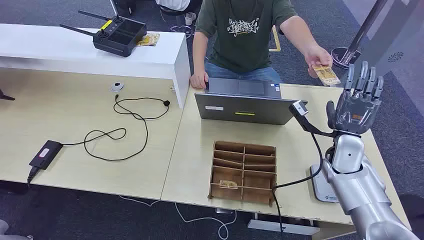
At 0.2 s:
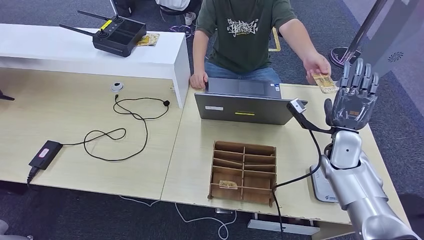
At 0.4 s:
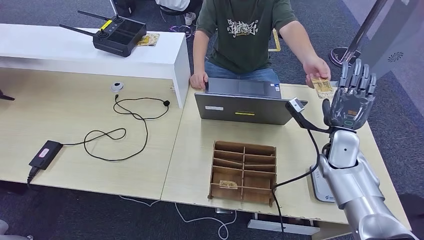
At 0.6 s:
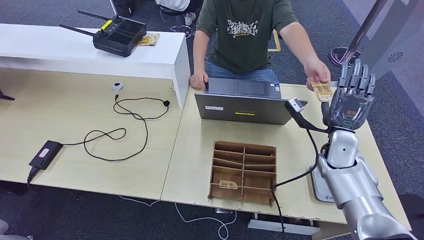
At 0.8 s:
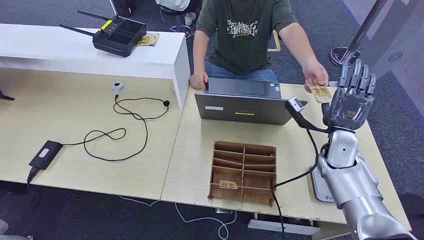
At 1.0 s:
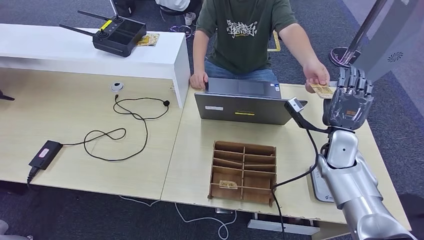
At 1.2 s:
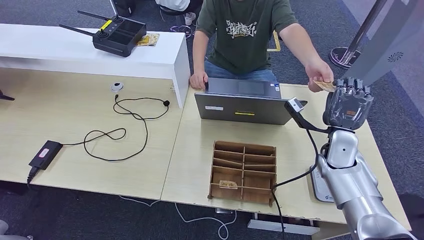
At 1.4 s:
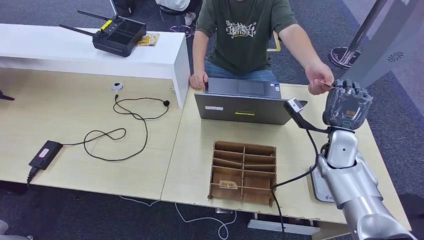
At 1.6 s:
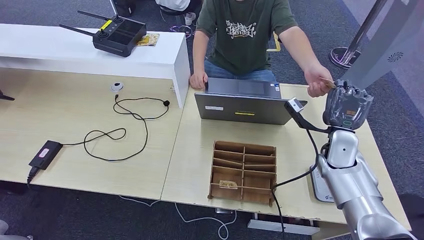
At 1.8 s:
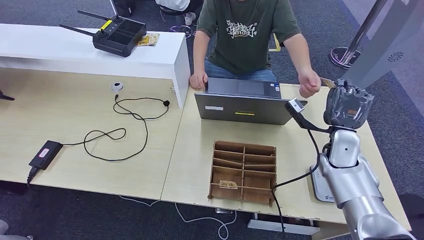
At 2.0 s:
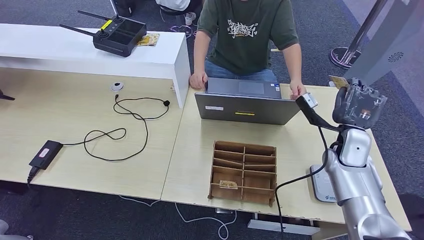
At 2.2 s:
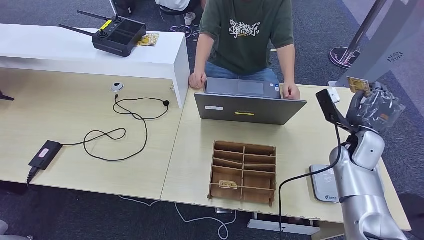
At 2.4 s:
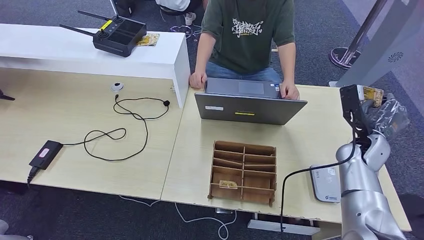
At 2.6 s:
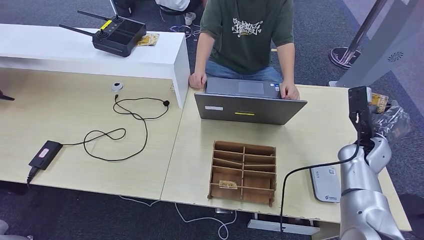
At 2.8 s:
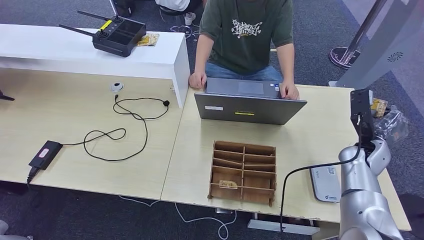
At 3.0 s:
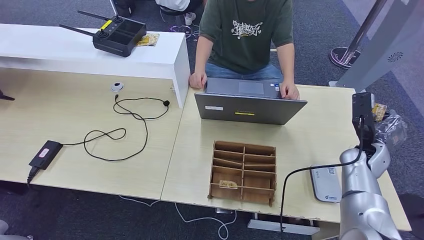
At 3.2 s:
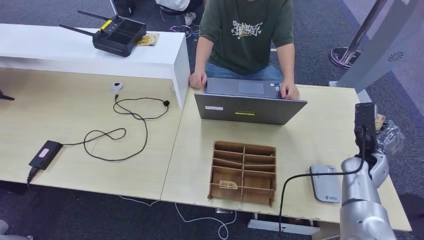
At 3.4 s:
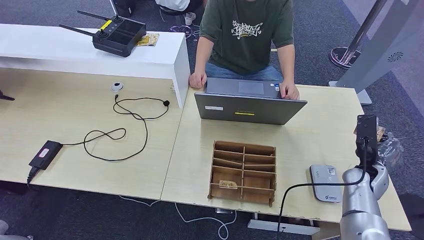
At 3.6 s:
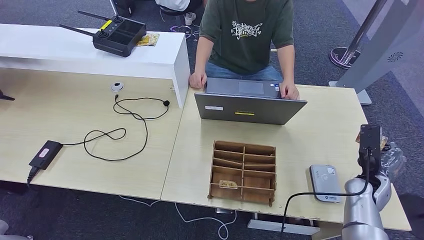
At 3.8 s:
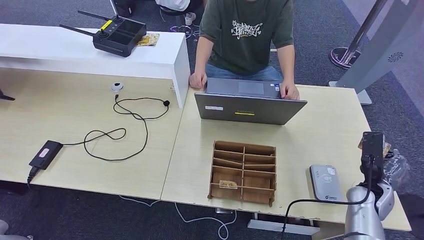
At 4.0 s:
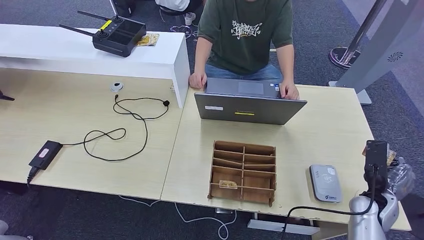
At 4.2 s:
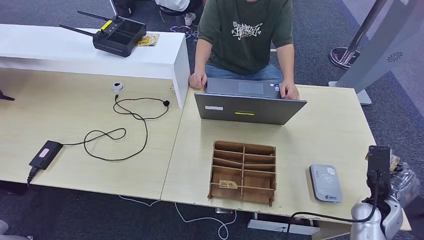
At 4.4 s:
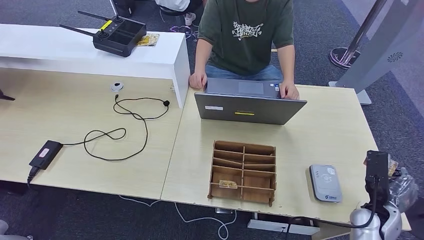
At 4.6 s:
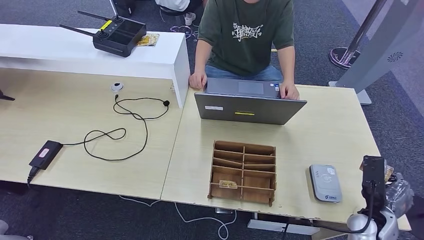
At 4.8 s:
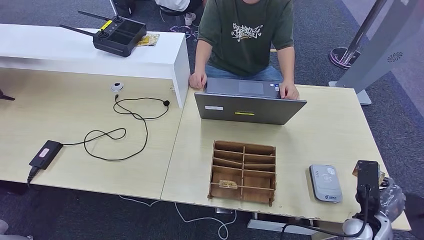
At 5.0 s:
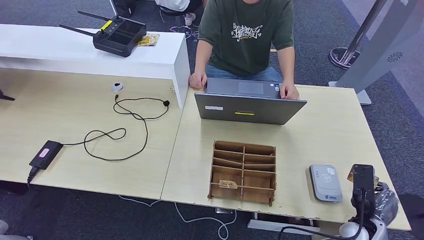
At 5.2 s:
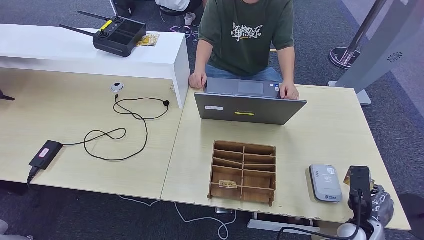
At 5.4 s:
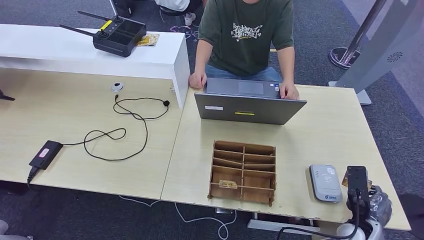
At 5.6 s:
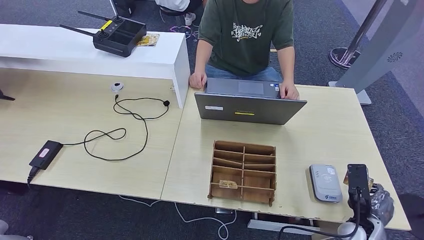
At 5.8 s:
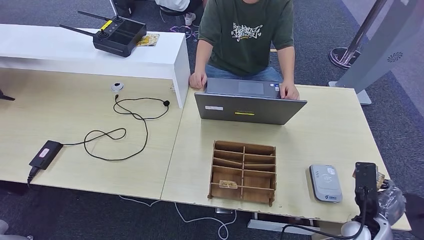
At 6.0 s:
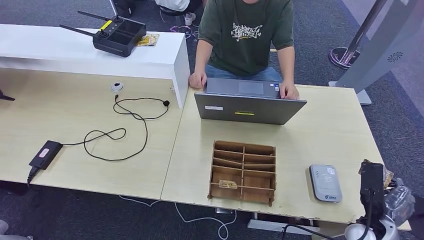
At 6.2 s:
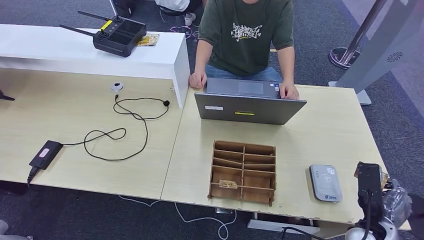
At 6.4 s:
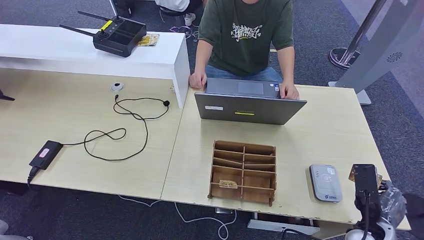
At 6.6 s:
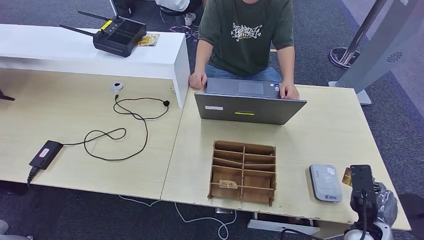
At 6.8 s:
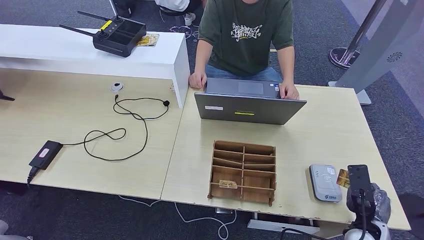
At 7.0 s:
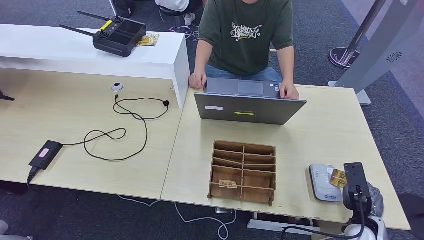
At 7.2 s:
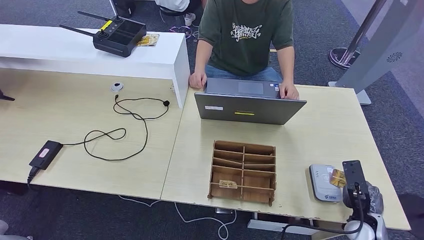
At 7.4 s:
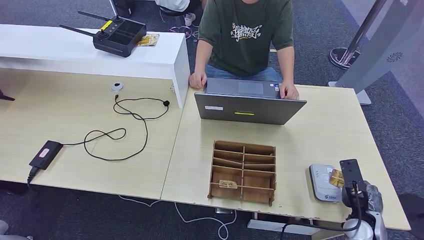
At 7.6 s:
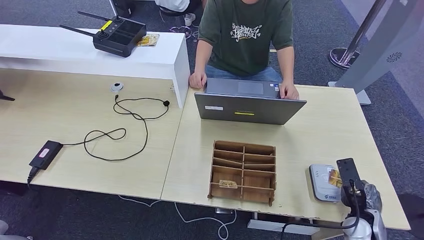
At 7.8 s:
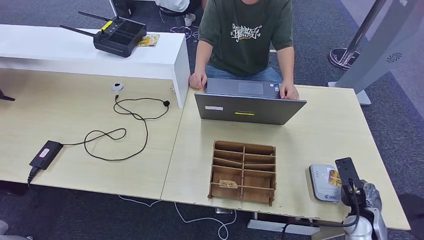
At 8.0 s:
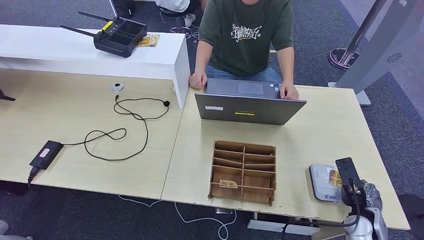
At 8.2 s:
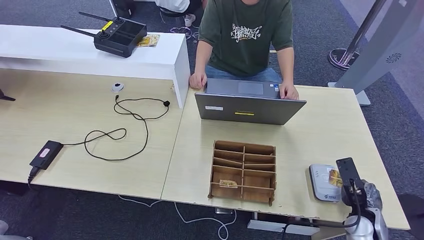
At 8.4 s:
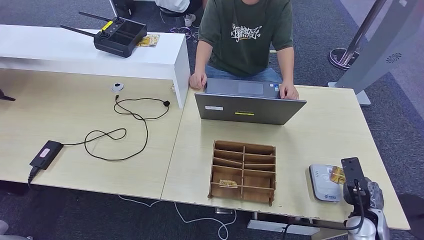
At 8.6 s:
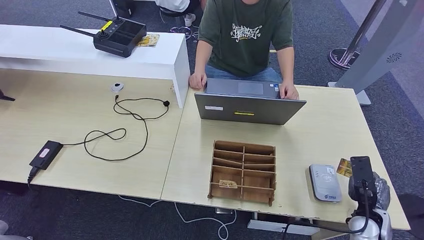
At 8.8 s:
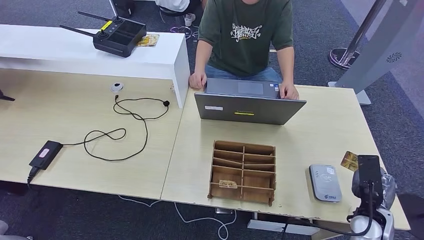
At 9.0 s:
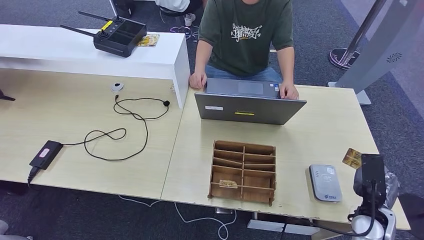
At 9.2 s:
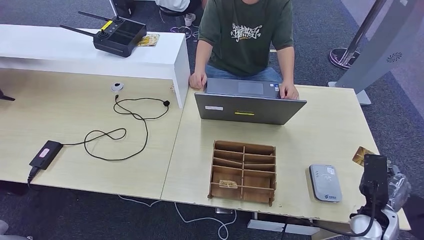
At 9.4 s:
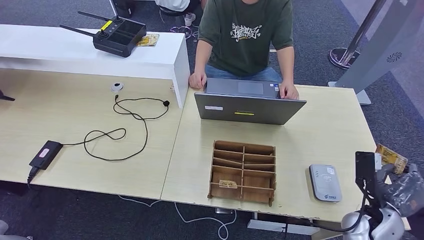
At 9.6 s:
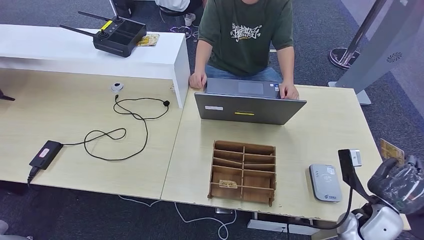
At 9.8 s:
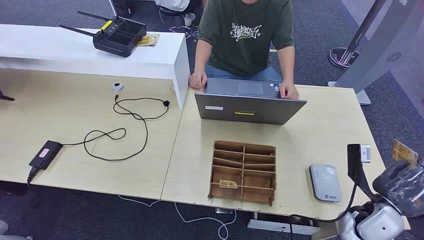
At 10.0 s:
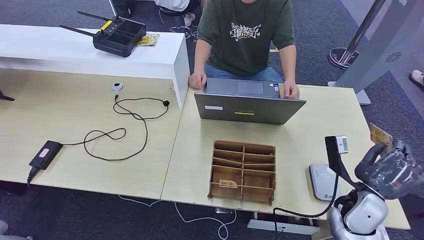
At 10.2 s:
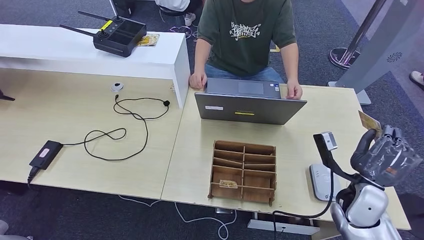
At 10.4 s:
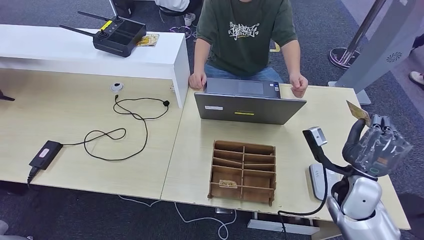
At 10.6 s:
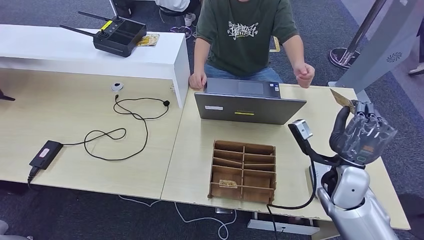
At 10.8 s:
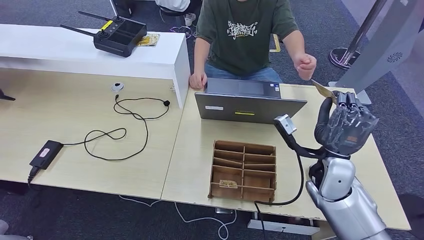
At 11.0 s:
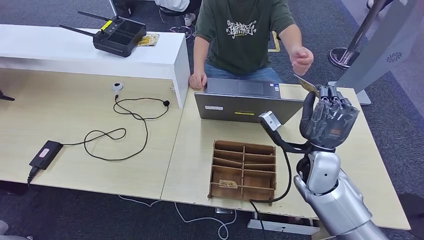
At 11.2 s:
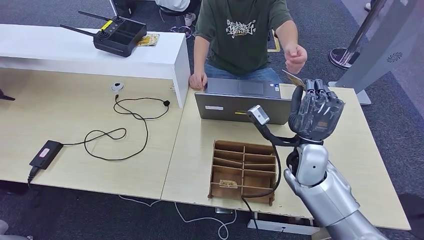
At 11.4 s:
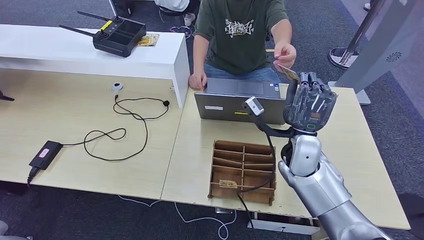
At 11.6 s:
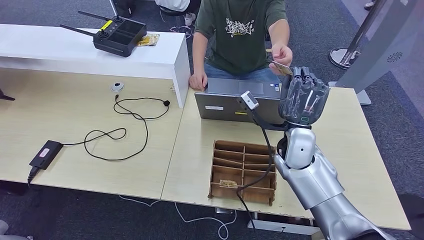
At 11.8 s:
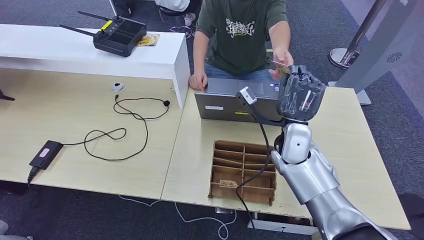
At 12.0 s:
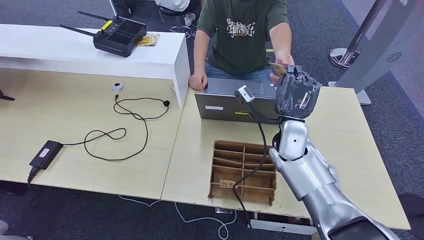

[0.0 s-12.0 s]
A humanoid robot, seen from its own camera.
Step, 0.0 to 2.8 s: Take the ID card from the person's hand.
Step, 3.2 to 10.0 s: Place the ID card on the card reader.
3.0 to 4.4 s: The right hand travels backward and downward by about 15 cm.
4.4 to 6.0 s: The hands move only a little.
9.0 to 10.4 s: The right hand goes about 10 cm upward and forward.
10.4 to 12.0 s: The right hand shifts approximately 20 cm to the left and forward.

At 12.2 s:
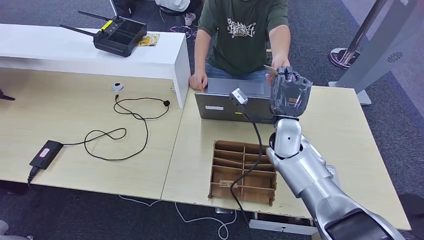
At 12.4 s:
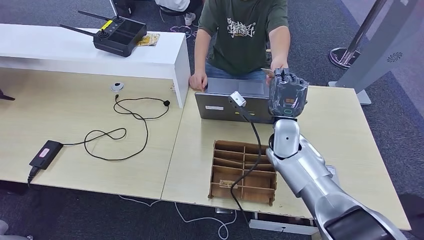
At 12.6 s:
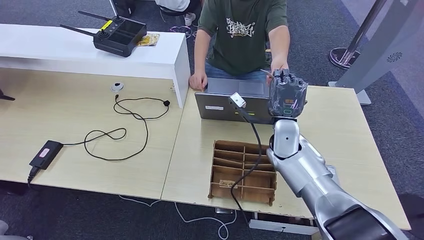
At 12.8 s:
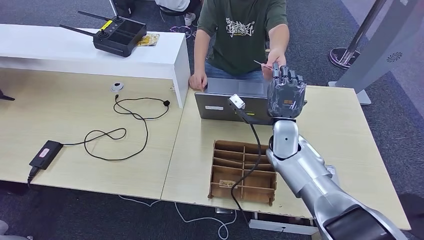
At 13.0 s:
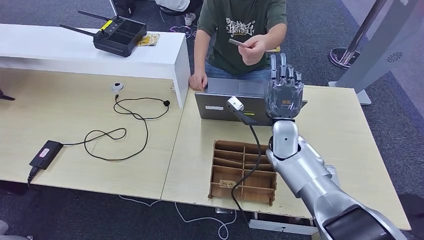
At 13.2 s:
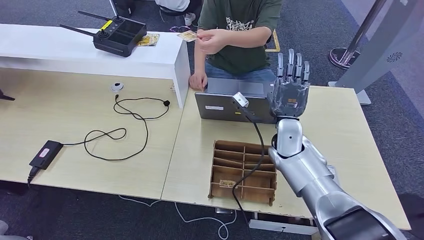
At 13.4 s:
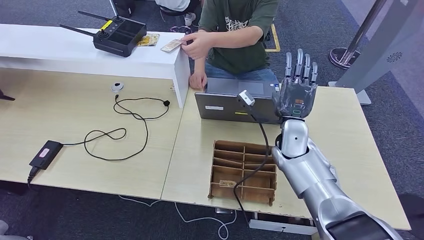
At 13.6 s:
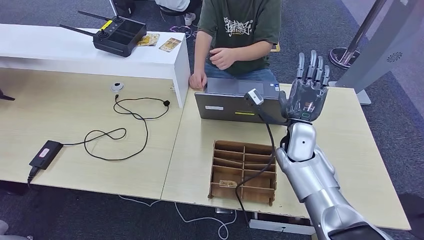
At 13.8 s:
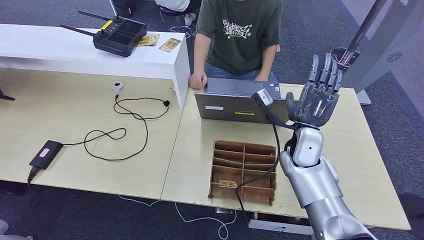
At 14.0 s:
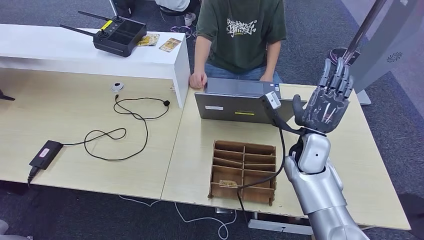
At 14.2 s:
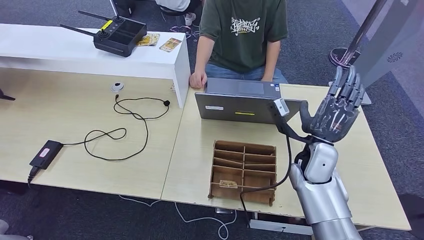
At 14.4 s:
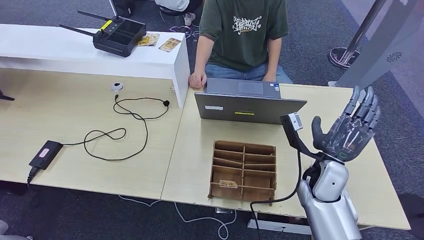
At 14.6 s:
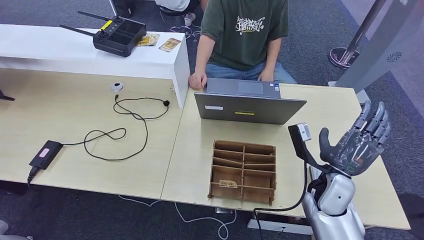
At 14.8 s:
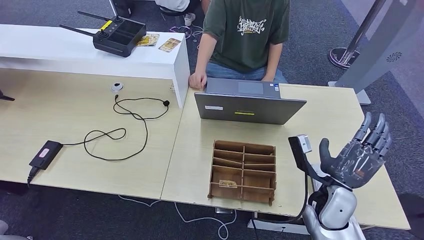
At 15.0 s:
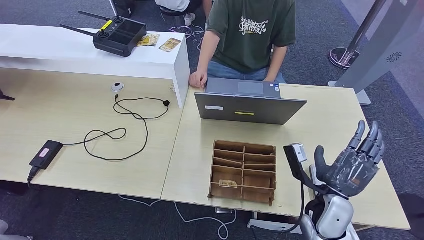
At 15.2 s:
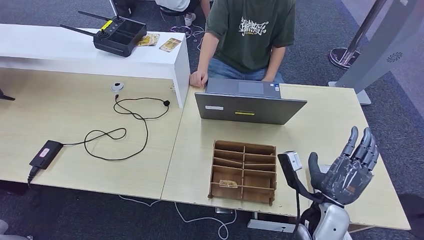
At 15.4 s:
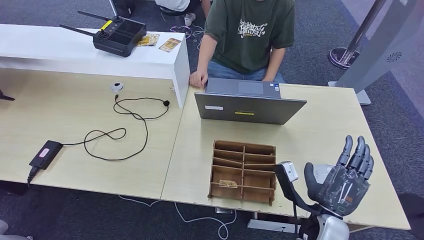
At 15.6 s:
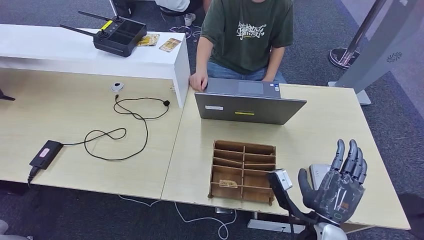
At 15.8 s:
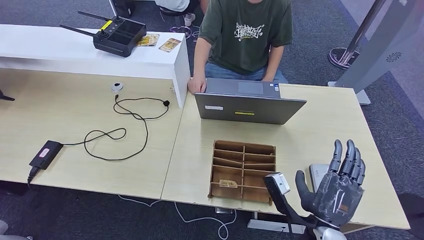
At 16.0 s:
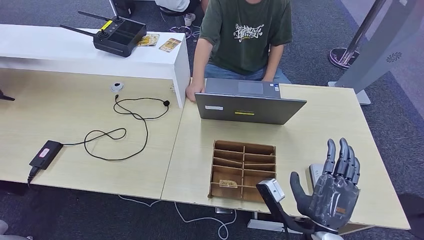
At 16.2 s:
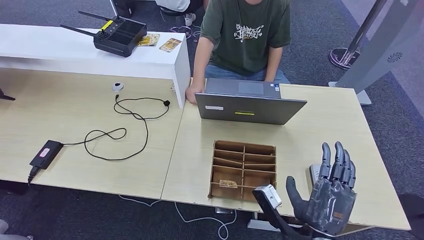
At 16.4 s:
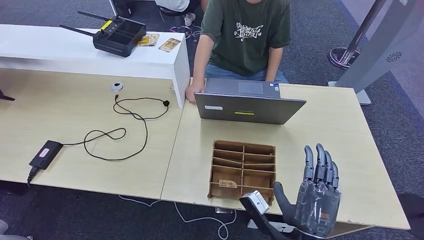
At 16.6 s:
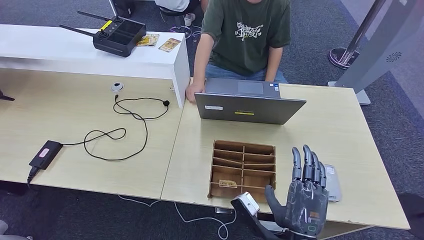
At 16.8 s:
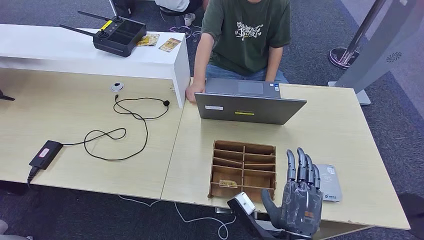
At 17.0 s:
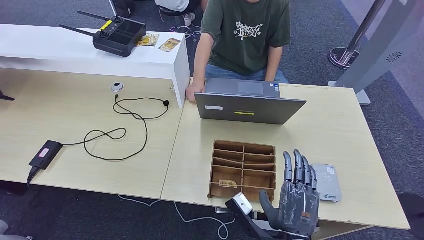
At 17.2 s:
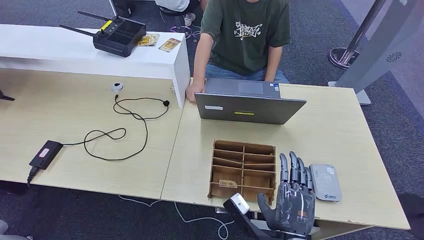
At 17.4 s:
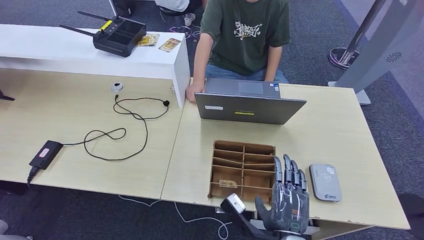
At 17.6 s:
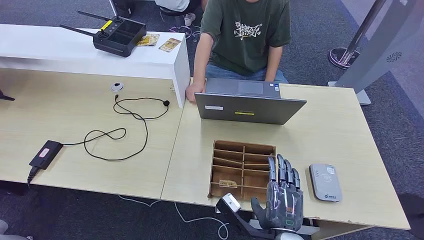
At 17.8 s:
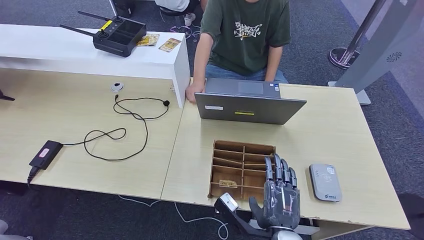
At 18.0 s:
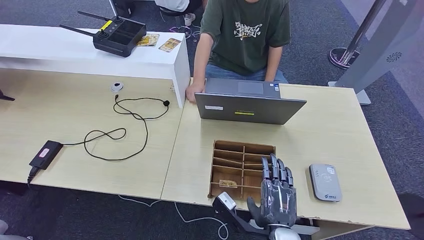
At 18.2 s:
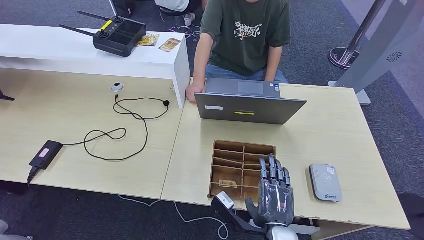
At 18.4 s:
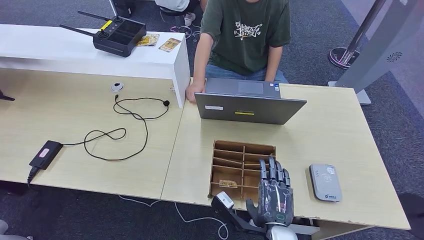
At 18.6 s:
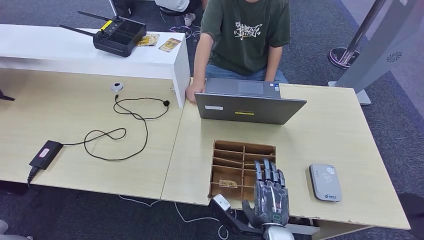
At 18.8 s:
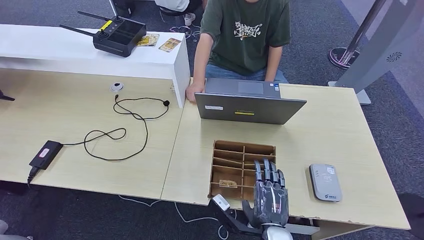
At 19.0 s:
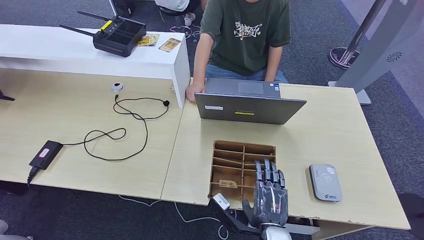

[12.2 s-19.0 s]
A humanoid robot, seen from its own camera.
12.2 to 13.6 s: The hands make only small movements.
13.6 to 15.0 s: The right hand goes about 15 cm backward and downward.
15.0 to 16.2 s: The right hand is displaced backward and to the left by approximately 10 cm.
16.2 to 17.6 s: The right hand goes approximately 5 cm to the left.
17.6 to 19.0 s: The hands make only small movements.
